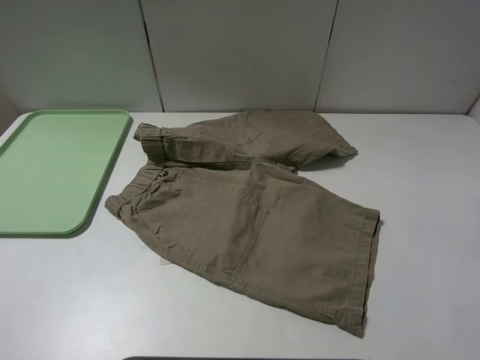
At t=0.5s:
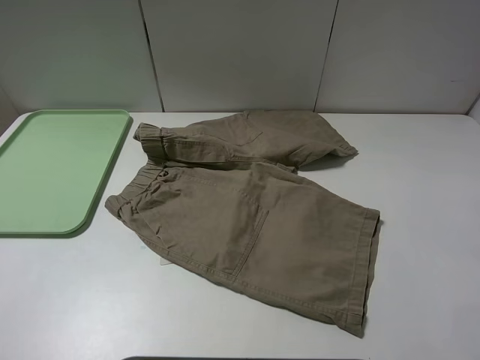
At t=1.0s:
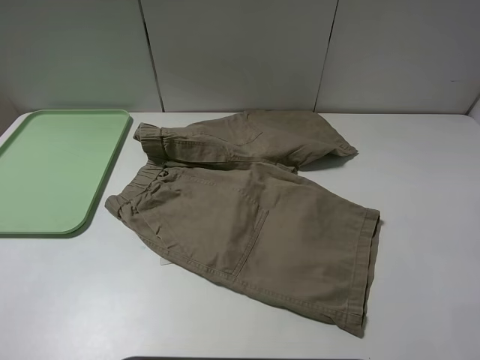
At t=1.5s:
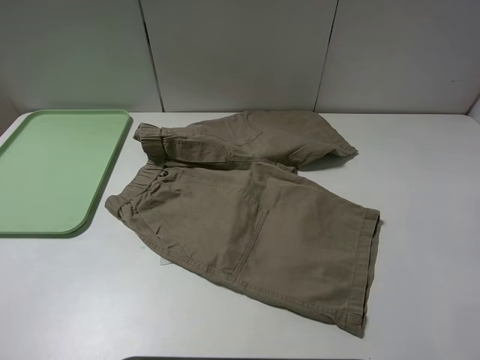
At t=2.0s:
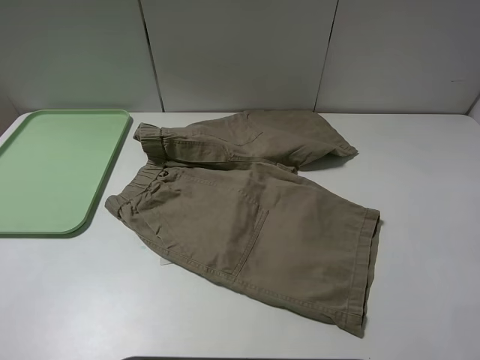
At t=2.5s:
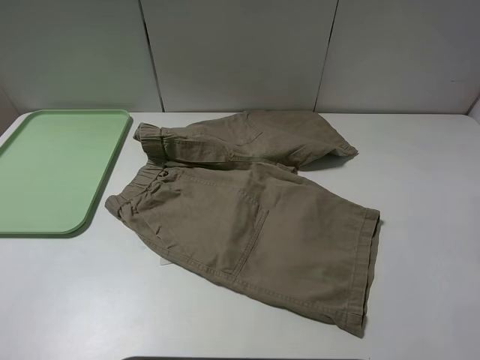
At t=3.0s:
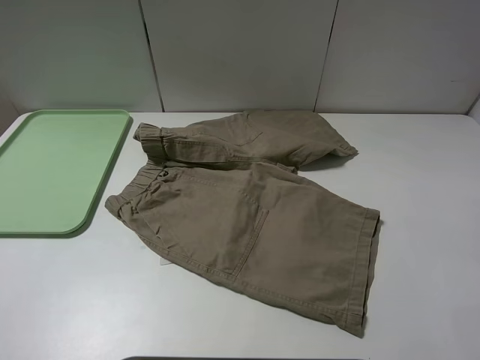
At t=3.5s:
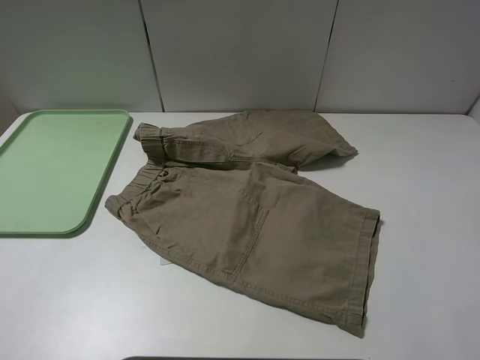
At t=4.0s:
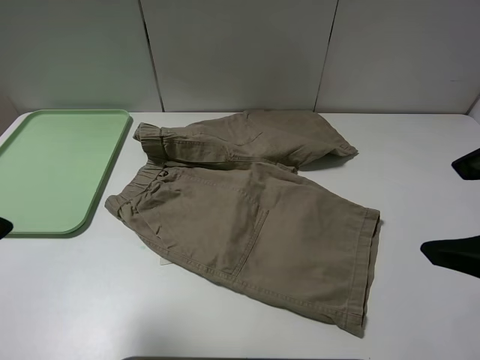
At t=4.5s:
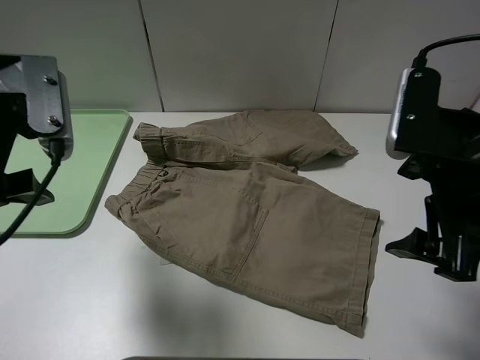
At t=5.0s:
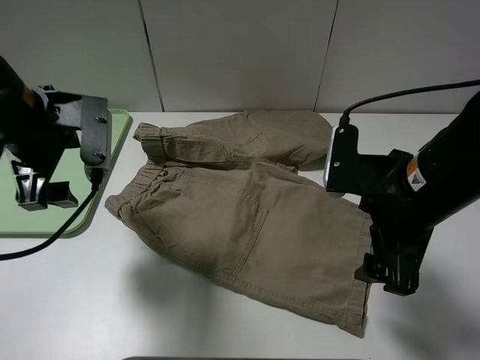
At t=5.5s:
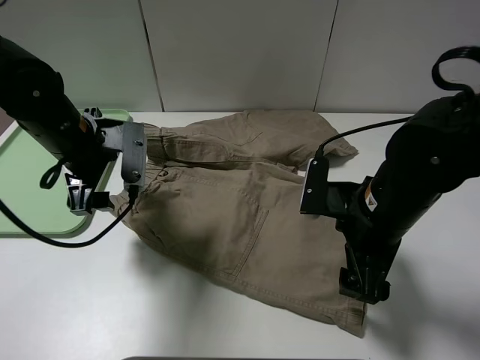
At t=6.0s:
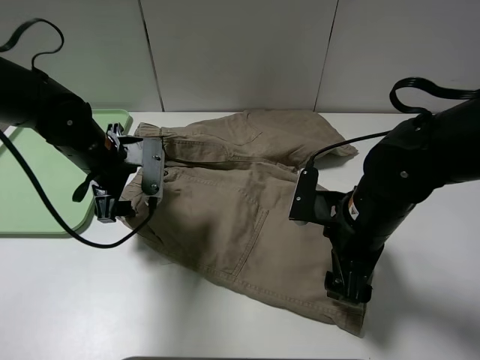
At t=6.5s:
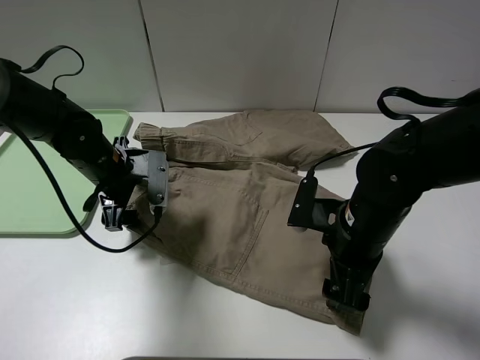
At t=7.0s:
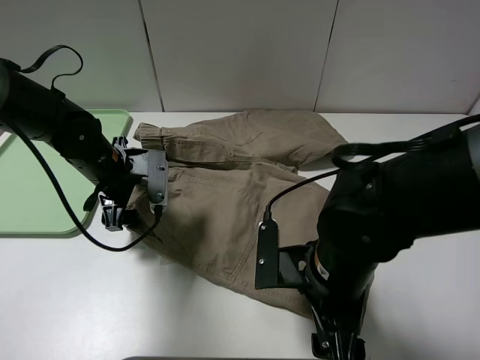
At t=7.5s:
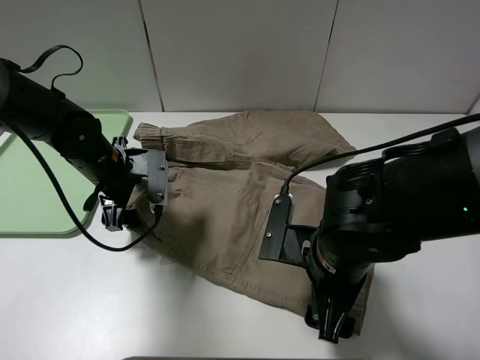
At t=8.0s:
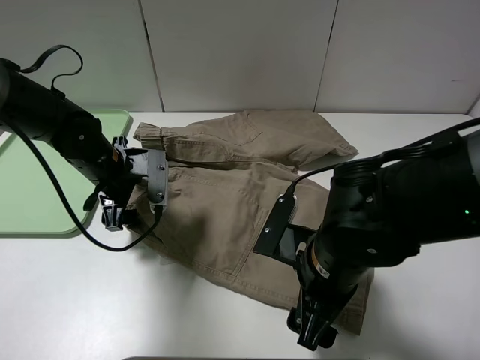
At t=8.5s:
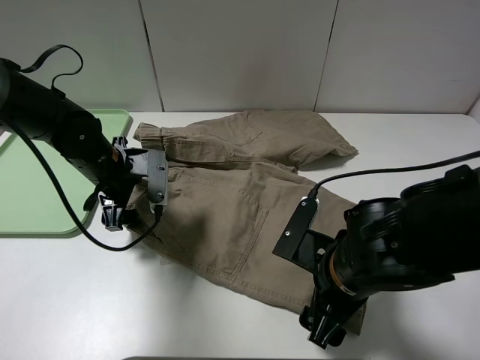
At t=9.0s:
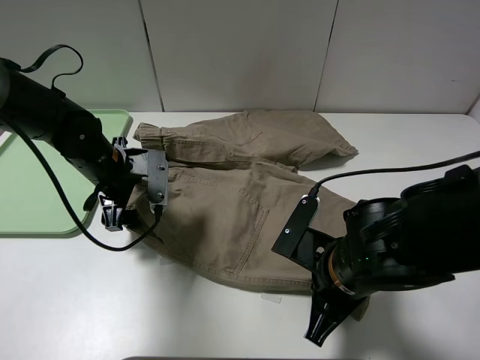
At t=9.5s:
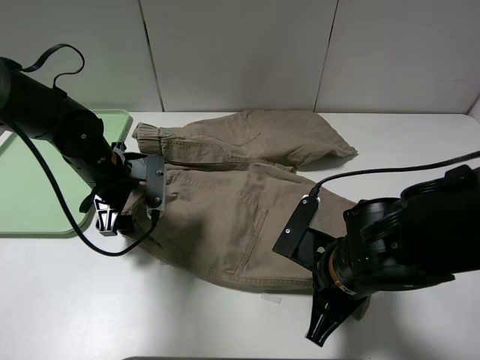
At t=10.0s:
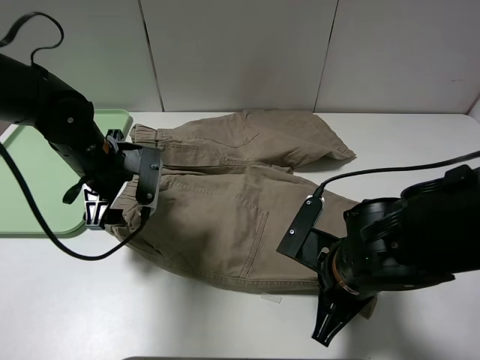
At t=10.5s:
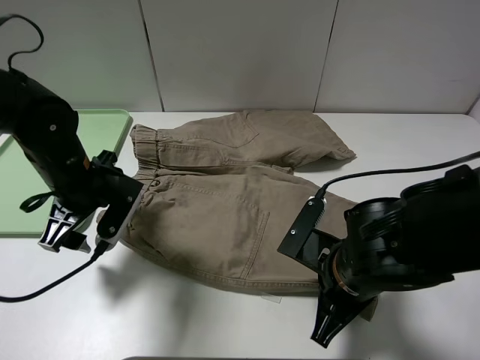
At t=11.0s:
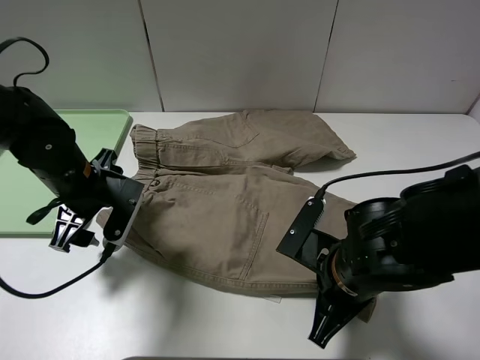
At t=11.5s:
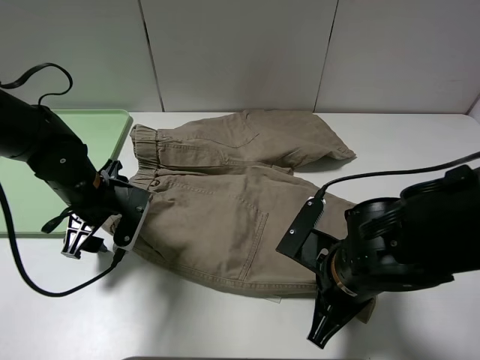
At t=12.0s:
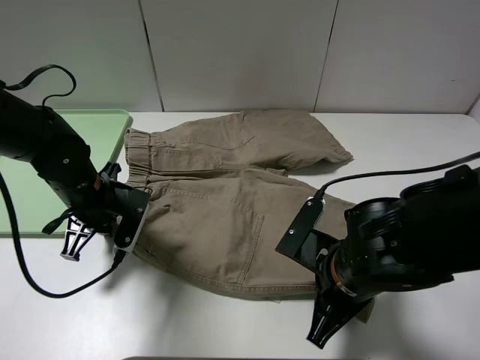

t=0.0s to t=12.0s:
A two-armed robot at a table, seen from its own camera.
Task of the whole recording: fold the khaki jeans in half with two grippers, then fold them in half again, and use the left claw to place the folded fold khaki jeans on the tray.
Step, t=0.0s to t=9.0s: Grasp the khaki trousers with the right gripper.
t=0.0s to t=2.0s: Both grippers stay about where they are.
t=2.0s to t=4.0s: The left gripper travels forward and to the right by about 15 cm. Meanwhile the right gripper heads forward and to the left, covering some 10 cm.
t=4.0s to t=6.0s: The left gripper travels downward and forward by roughly 25 cm. Meanwhile the right gripper travels downward, forward and to the left by about 20 cm.
t=6.0s to t=8.0s: The right gripper travels backward by roughly 5 cm.
t=8.0s to t=10.0s: The right gripper closes up.
t=10.0s to t=12.0s: The left gripper shifts by approximately 5 cm, and closes.

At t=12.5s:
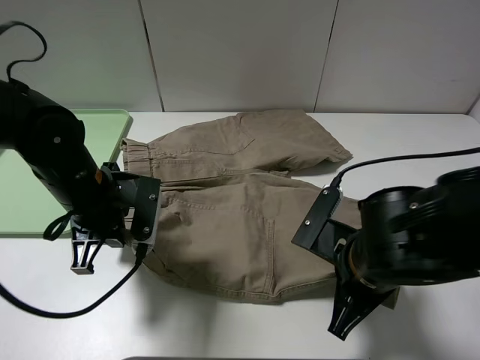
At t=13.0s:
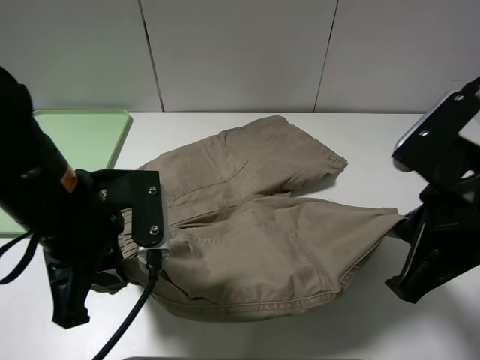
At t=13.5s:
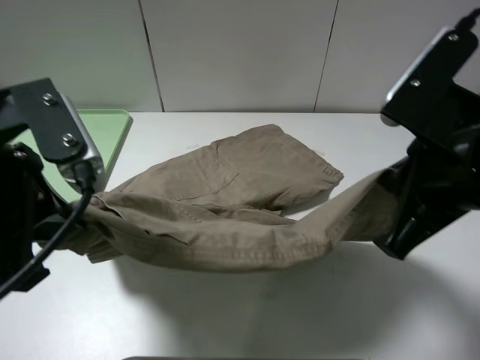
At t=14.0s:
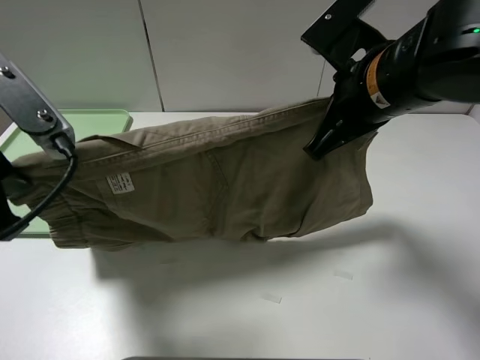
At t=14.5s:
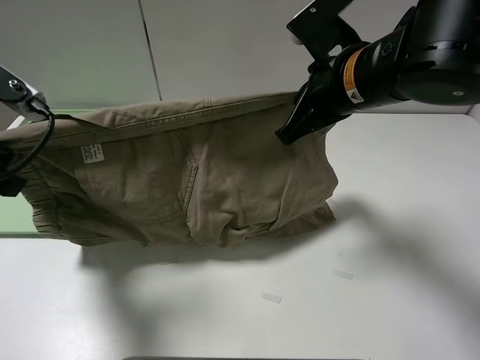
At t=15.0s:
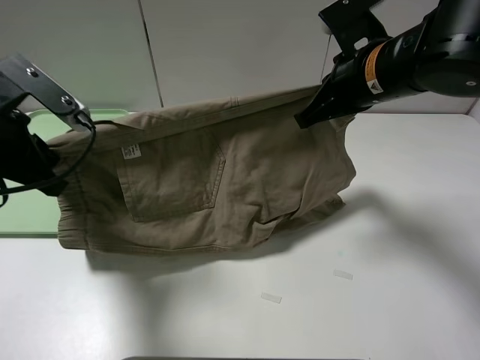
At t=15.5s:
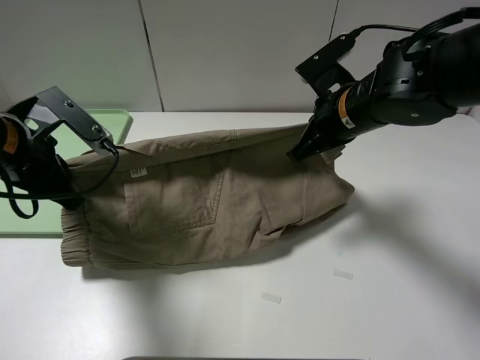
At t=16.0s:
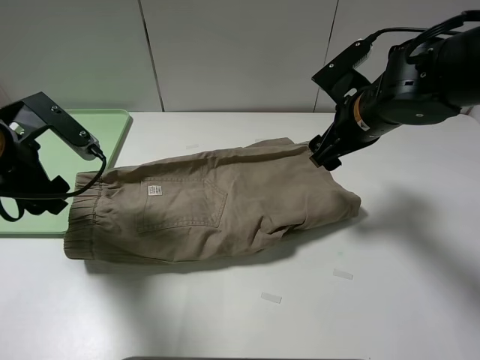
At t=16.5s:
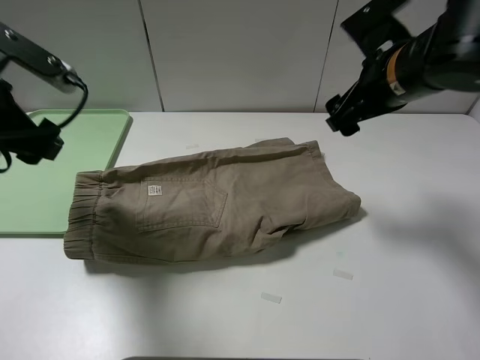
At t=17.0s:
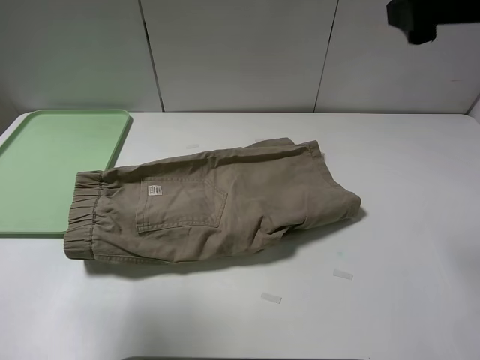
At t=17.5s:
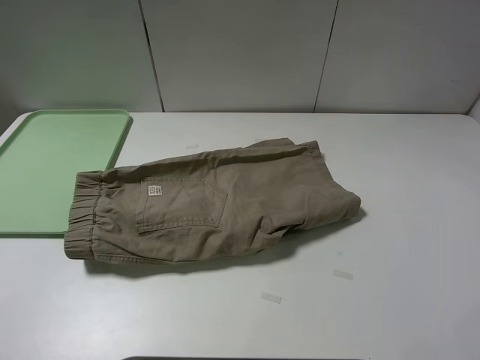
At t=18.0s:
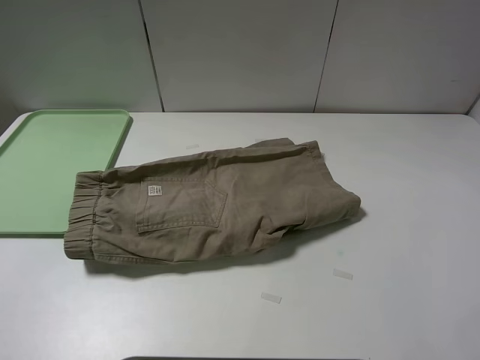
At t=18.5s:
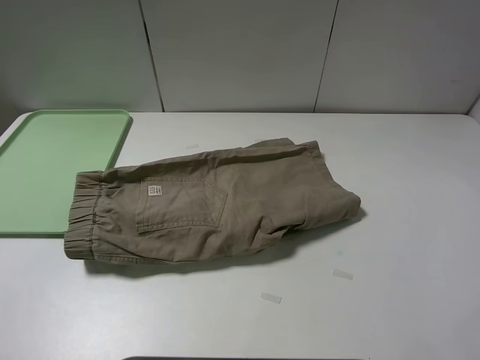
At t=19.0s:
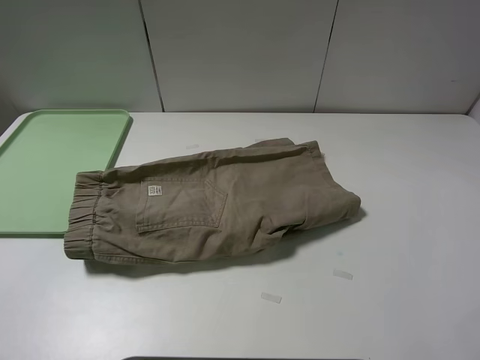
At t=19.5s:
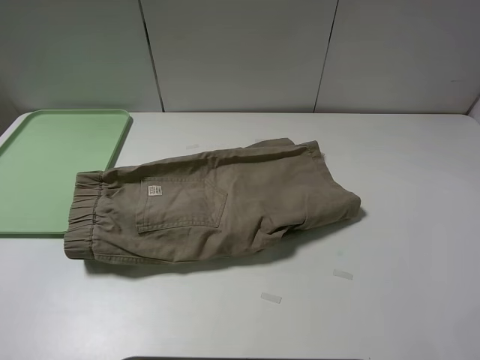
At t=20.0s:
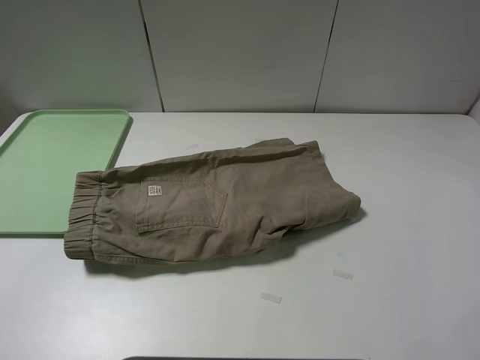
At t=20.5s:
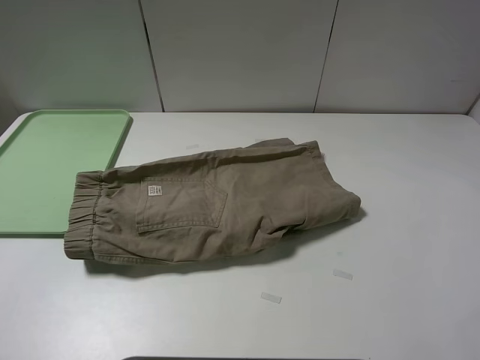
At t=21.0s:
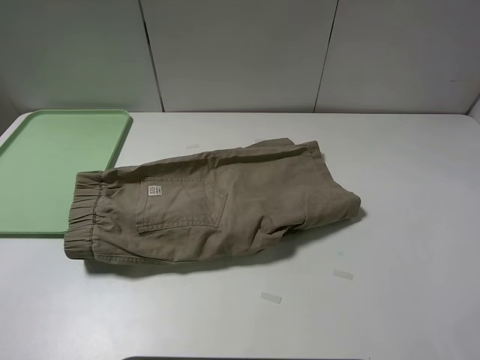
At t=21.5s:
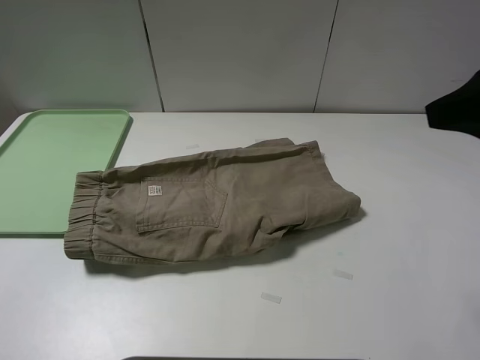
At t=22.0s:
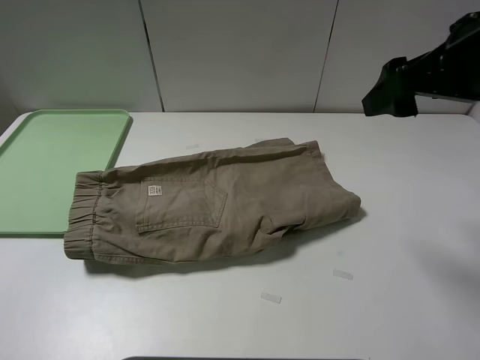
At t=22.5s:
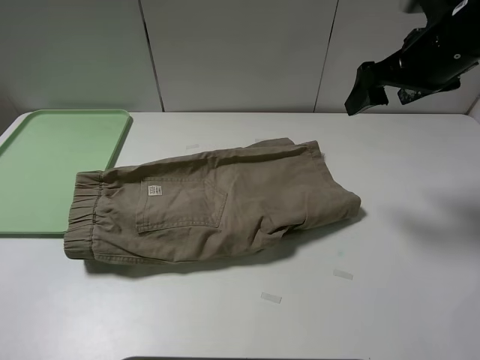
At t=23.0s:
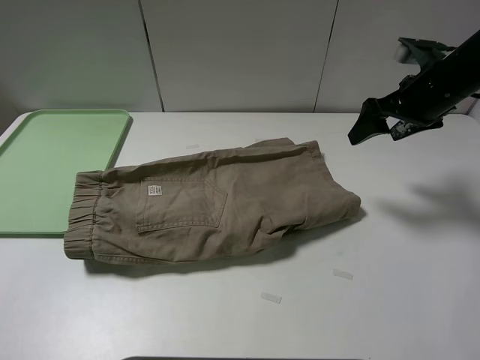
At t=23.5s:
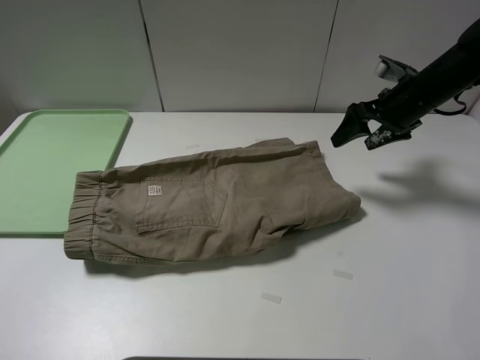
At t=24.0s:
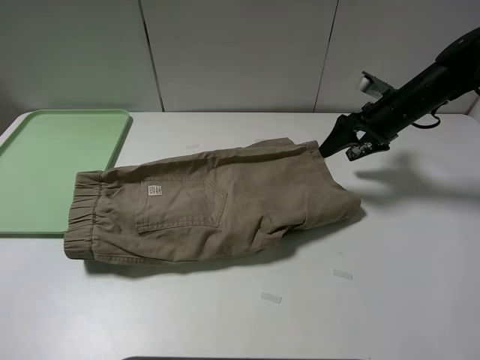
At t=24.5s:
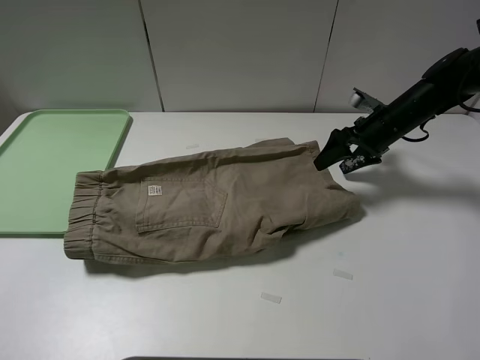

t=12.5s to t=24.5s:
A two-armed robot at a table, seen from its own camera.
Task of the whole recording: fold the khaki jeans in half with two grippers, then fold them in half again, and use the left claw to place the folded fold khaki jeans on the tray.
Step, t=12.5s to t=15.5s: Fold the khaki trousers upwards with the left gripper.
t=12.5s to t=14.5s: The left gripper travels upward and to the left by some 15 cm, while the right gripper shifts roughly 15 cm forward and upward.
t=14.5s to t=16.5s: The right gripper moves to the right, roughly 5 cm, travels downward and back again, some 5 cm each way, and opens its fingers. Meanwhile the left gripper reaches roughly 5 cm downward, then returns, and opens up.
t=16.5s to t=18.5s: The left gripper travels backward by roughly 20 cm, while the right gripper is displaced backward, upward and to the right by approximately 25 cm.
t=20.5s to t=22.5s: The right gripper moves forward and downward, roughly 25 cm.
t=22.5s to t=24.5s: The right gripper moves downward and forward, about 20 cm.

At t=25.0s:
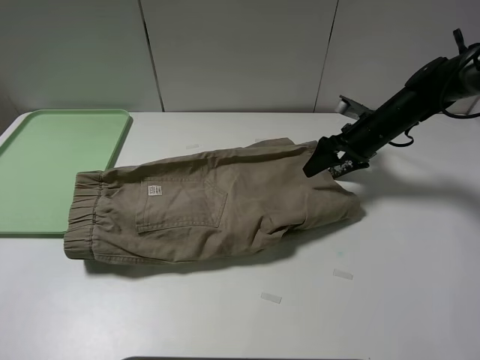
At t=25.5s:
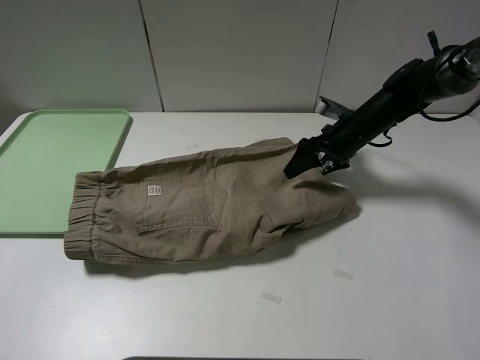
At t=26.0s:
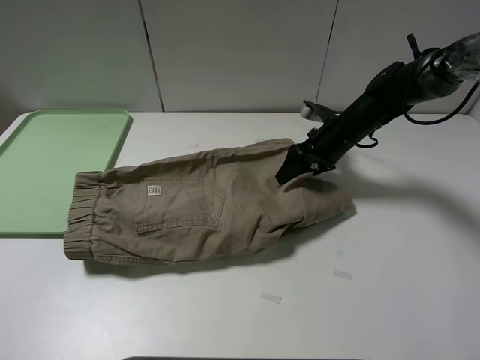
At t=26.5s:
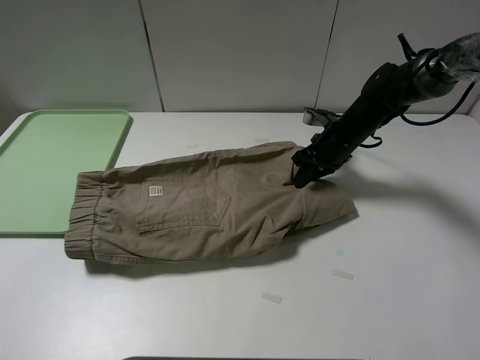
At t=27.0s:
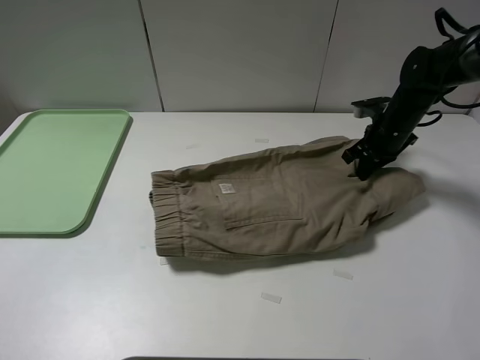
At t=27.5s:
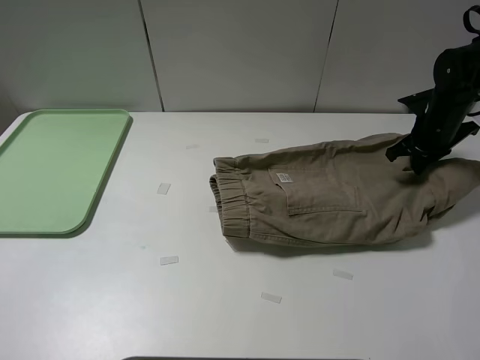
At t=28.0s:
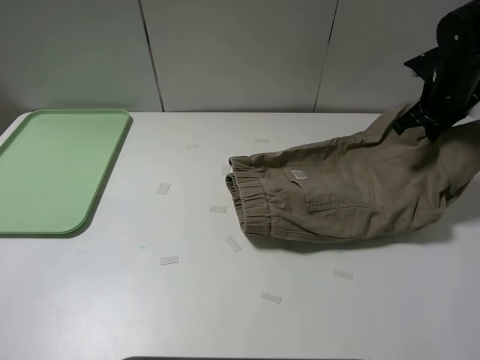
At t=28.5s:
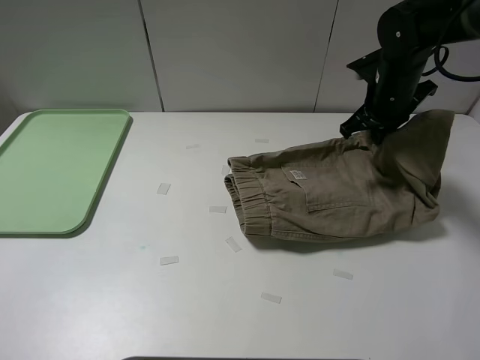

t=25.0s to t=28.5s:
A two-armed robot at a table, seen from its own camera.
Task of the whole recording: fold the khaki jeans in half with two grippers, then fold them in half again, and use the left claw to place the folded fold khaki jeans on the tray.
t=25.0s to t=27.0s: The right gripper reaches about 5 cm to the left, then returns, and closes its fingers.
t=27.0s to t=28.5s: The right gripper shifts roughly 10 cm upward.
